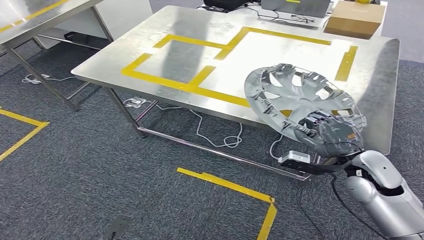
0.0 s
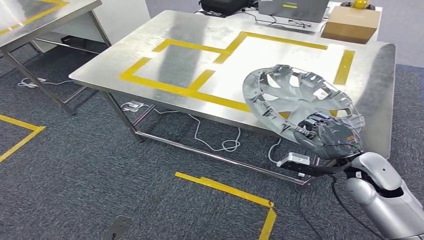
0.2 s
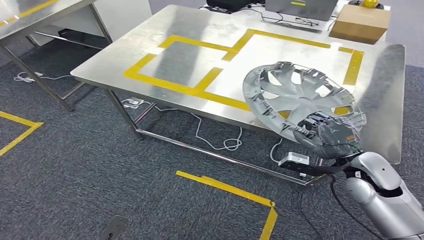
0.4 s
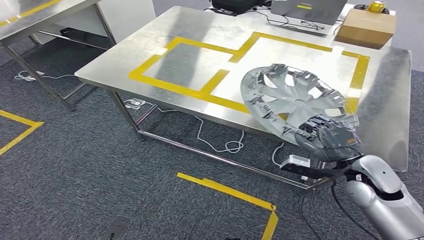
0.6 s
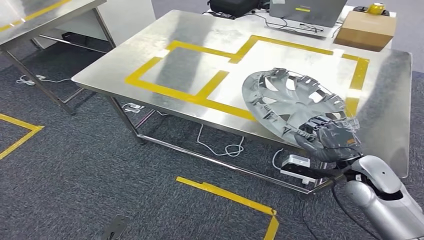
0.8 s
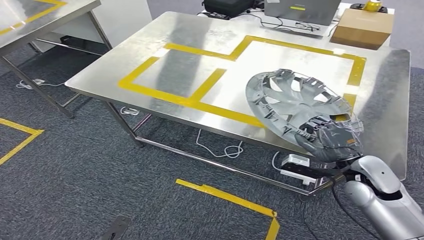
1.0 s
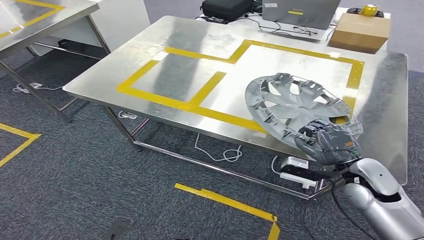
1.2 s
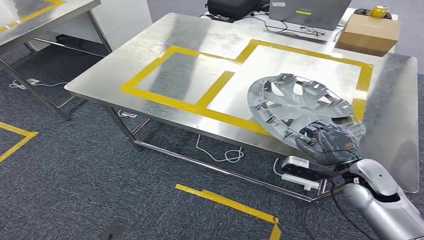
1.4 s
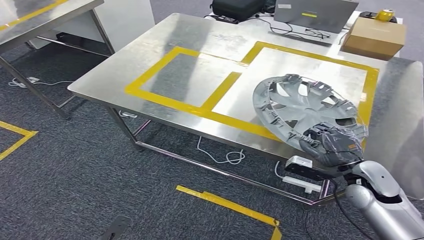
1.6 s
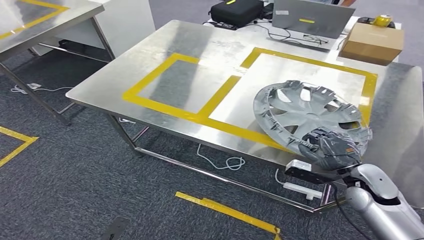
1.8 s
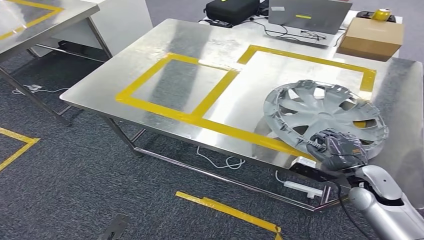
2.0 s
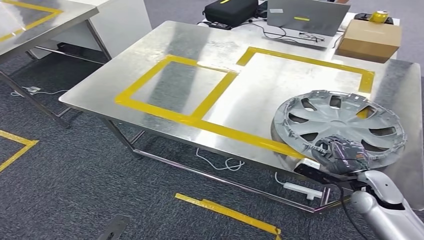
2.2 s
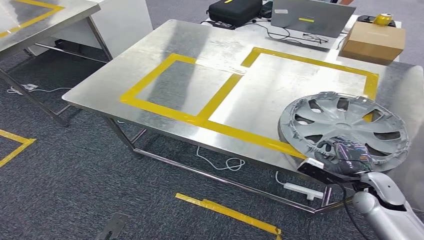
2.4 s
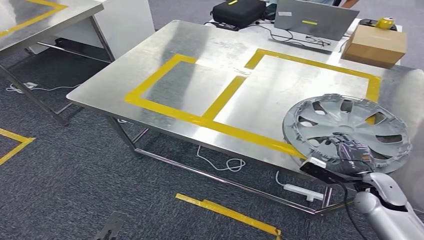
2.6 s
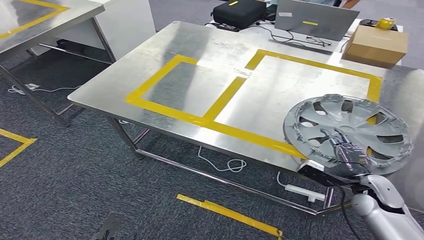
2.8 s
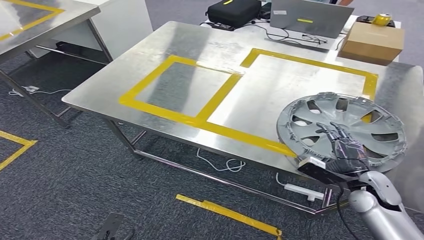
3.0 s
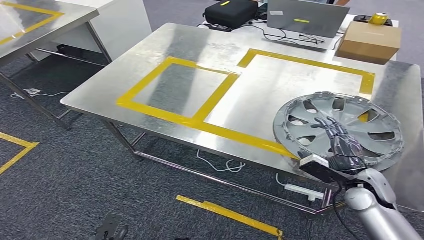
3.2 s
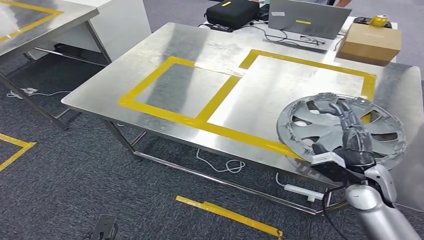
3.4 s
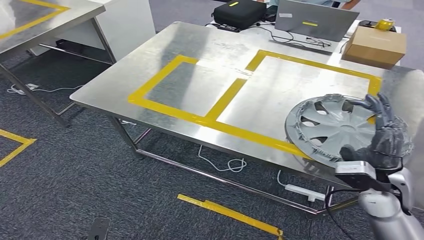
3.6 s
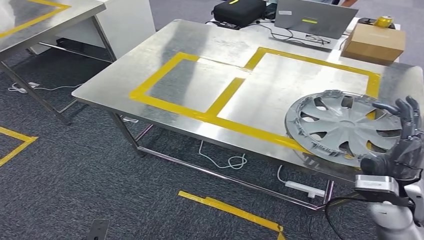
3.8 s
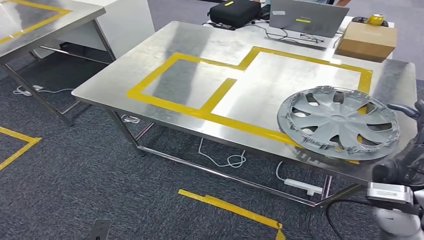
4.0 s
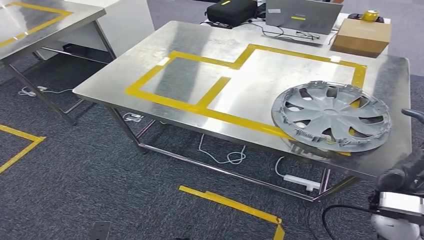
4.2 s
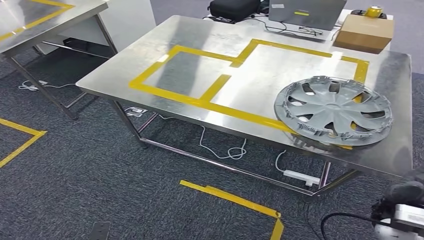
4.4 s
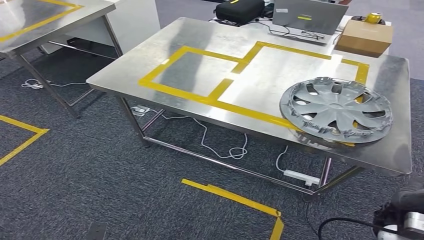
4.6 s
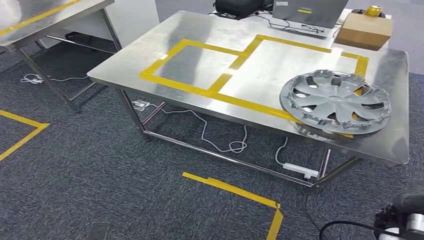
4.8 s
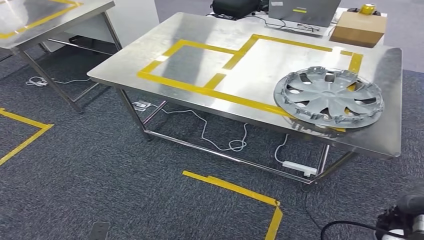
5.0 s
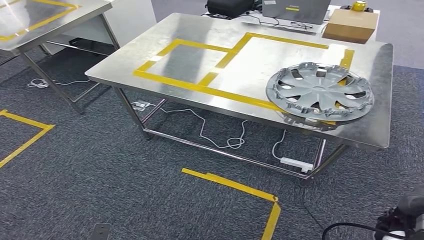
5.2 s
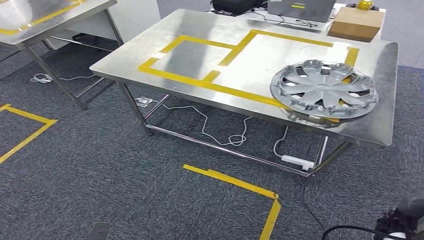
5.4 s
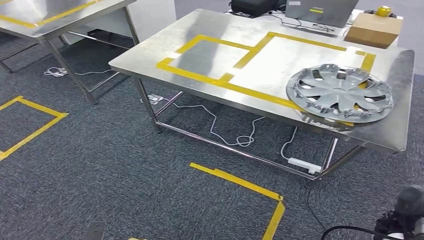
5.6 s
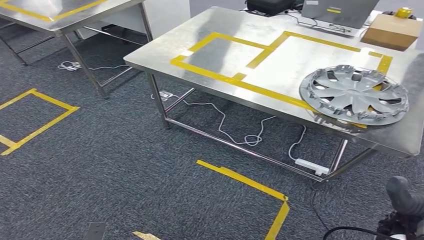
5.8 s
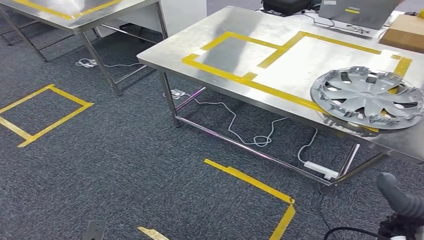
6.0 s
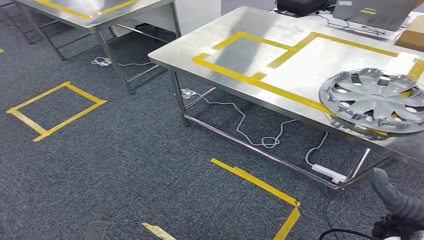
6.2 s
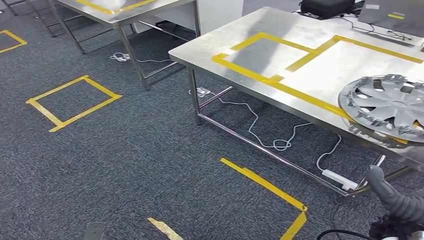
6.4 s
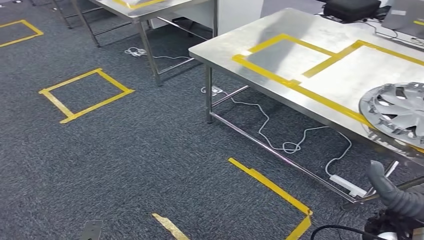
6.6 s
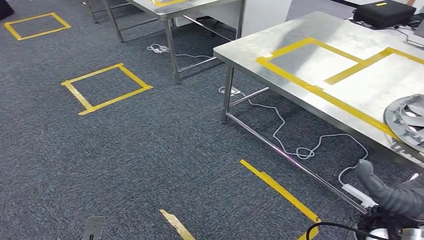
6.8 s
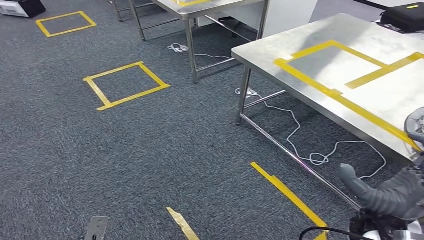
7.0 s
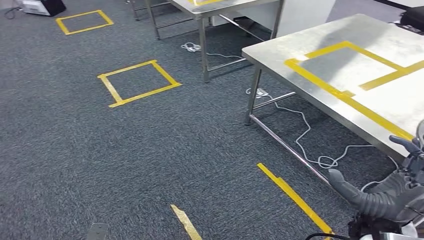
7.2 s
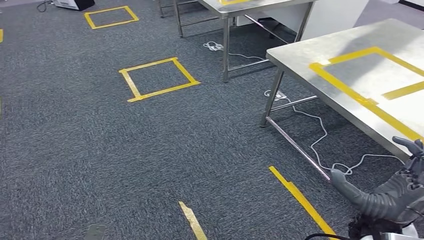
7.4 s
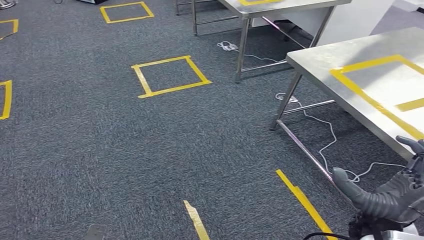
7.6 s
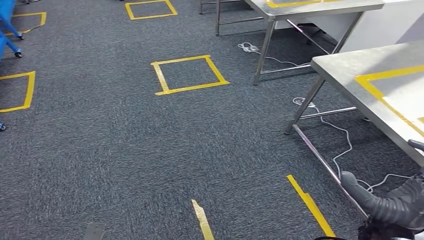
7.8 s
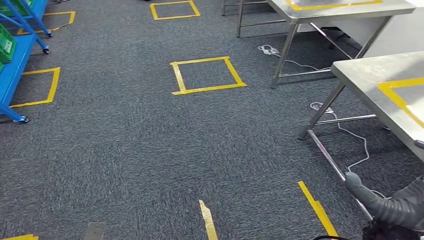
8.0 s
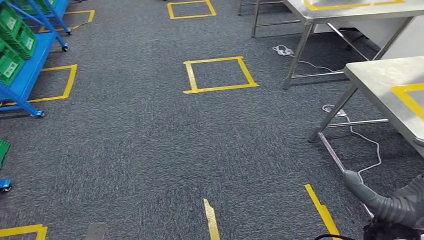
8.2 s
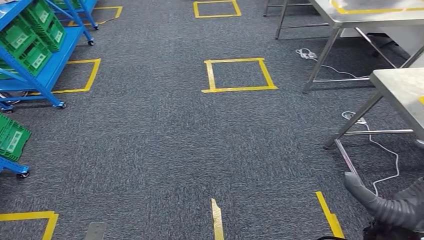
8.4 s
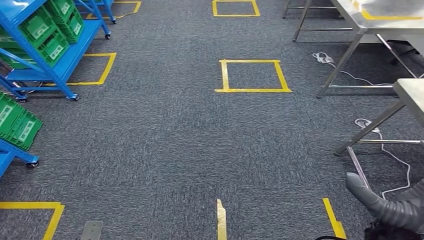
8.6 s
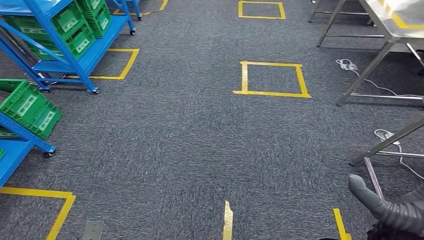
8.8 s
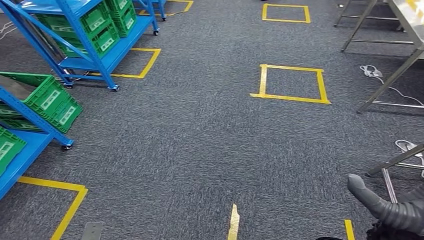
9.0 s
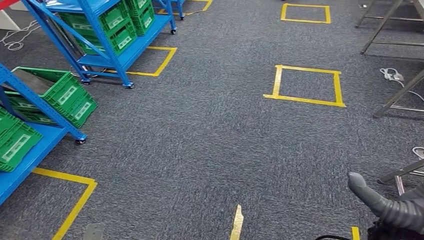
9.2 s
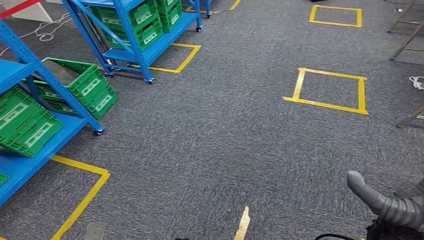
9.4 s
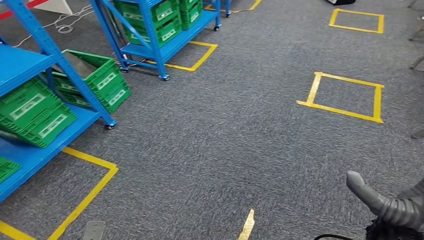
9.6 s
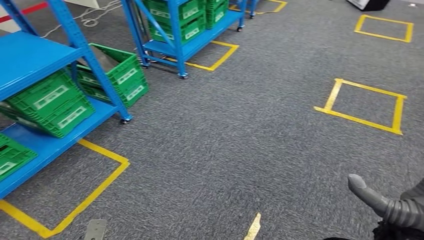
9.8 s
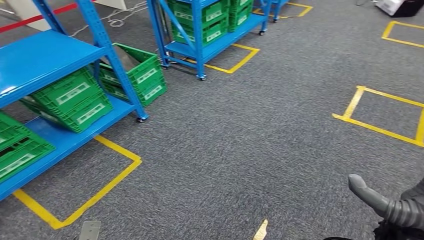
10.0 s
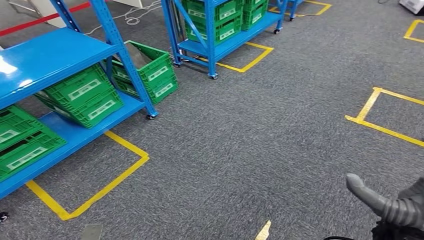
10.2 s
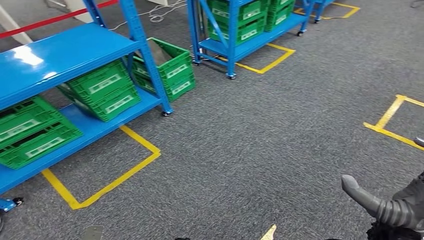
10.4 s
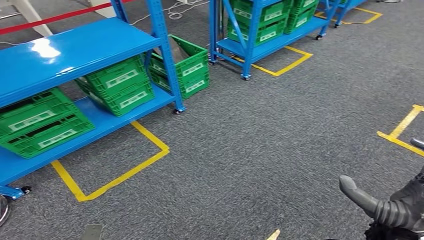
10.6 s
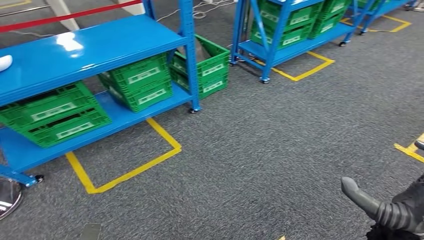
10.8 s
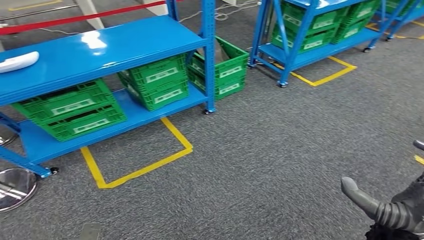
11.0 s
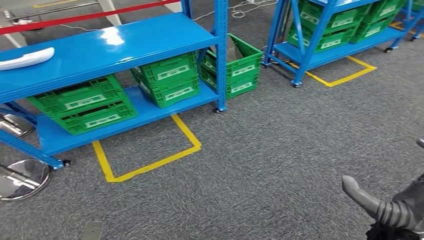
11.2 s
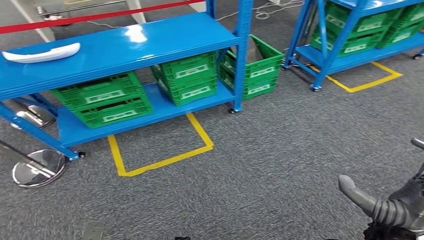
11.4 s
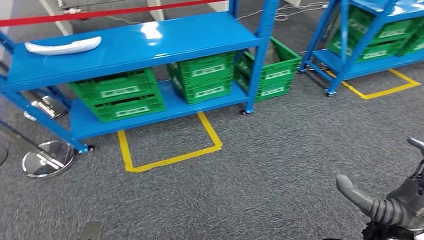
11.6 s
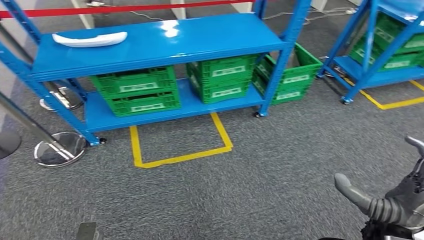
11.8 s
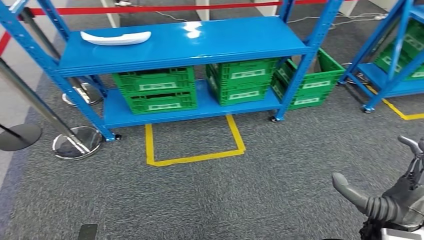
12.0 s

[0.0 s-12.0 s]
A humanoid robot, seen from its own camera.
Step, 0.0 to 4.8 s: Insert the small component into the corresponding slot on the workbench.

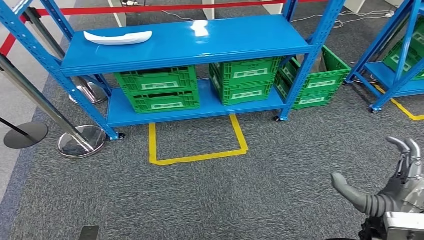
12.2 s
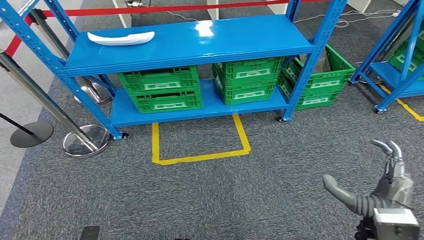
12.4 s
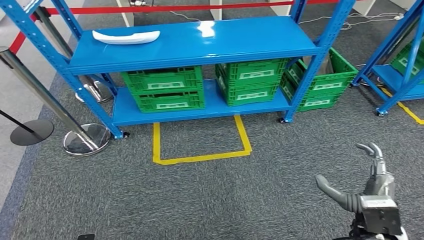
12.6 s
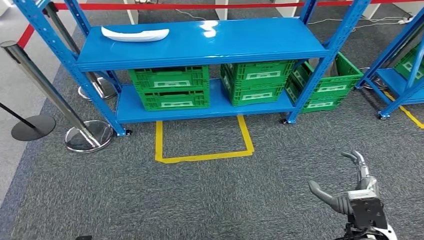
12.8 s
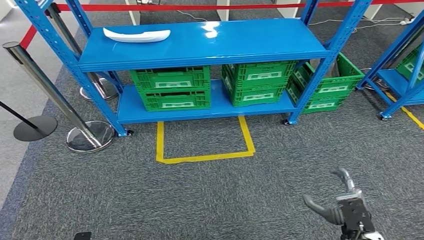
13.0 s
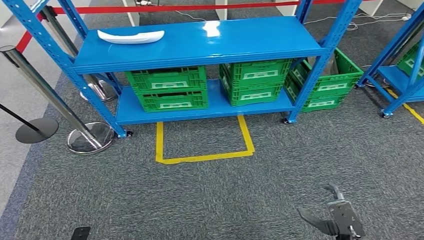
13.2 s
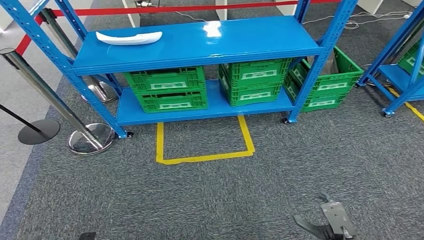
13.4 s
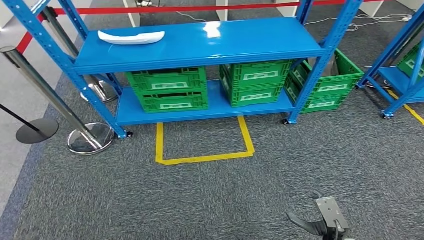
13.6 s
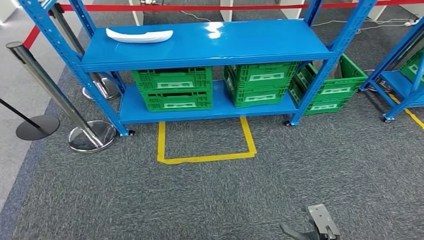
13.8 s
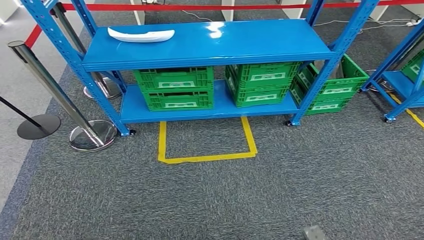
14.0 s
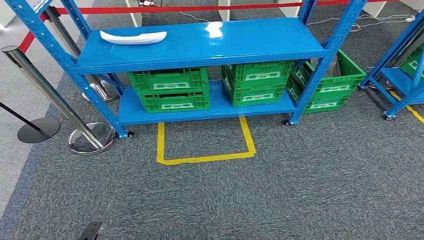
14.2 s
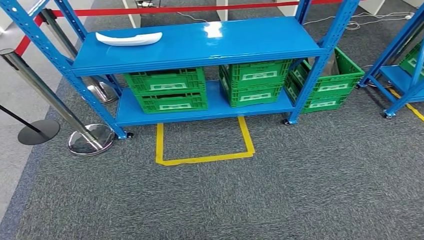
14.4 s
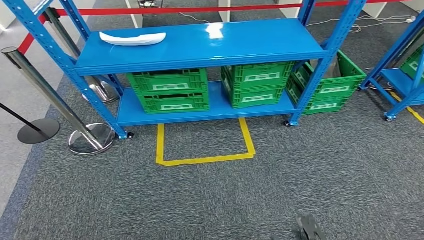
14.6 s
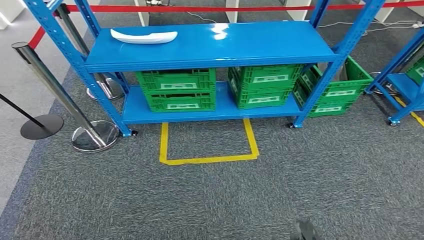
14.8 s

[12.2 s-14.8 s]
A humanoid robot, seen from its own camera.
Step, 12.2 to 14.6 s: Return to the initial position at the workbench.

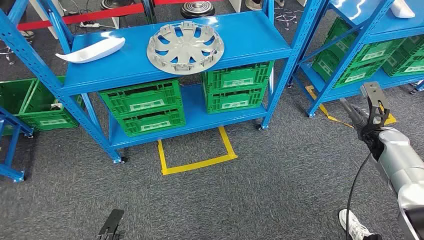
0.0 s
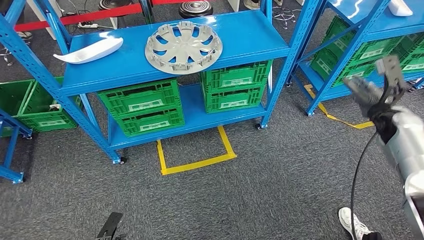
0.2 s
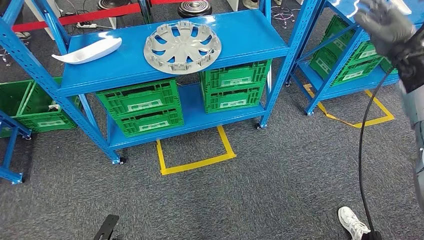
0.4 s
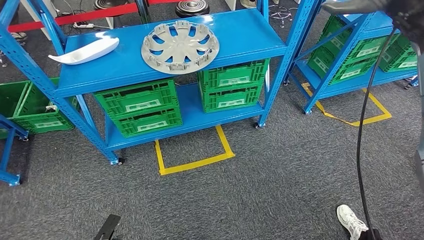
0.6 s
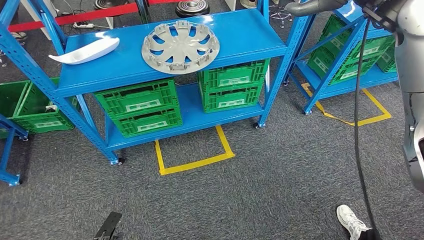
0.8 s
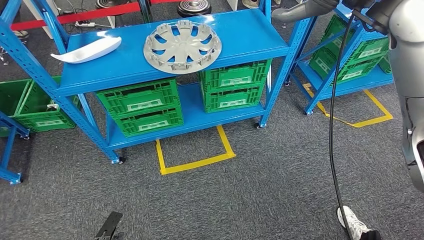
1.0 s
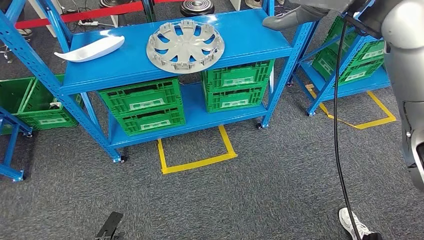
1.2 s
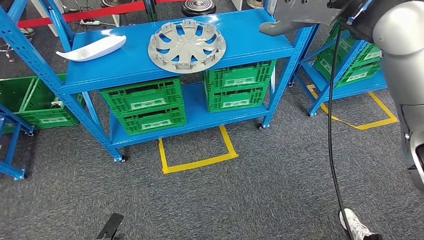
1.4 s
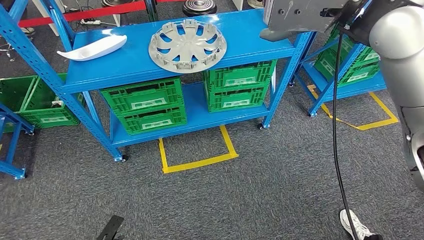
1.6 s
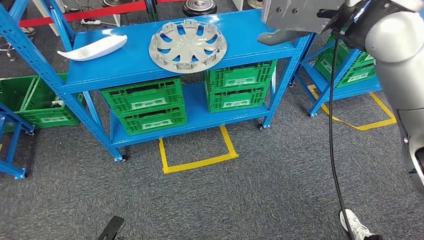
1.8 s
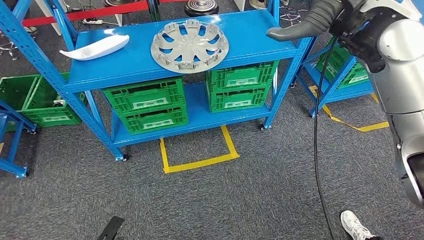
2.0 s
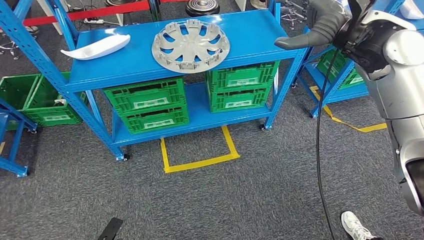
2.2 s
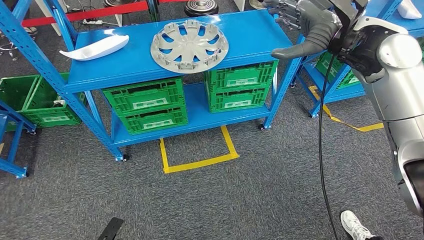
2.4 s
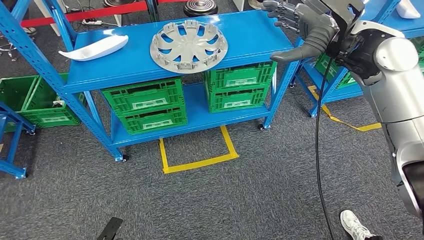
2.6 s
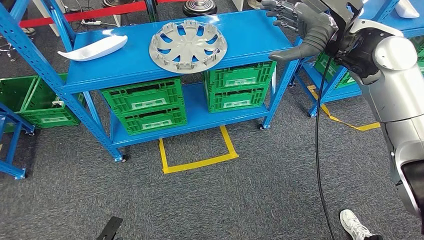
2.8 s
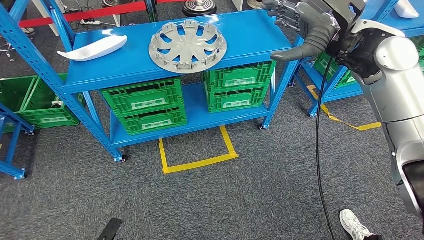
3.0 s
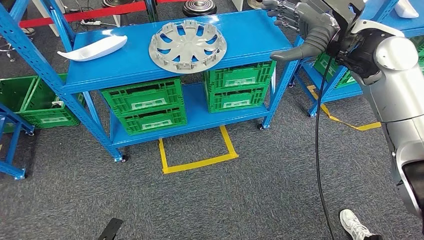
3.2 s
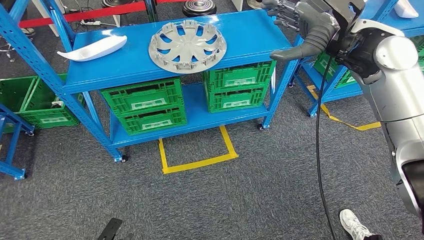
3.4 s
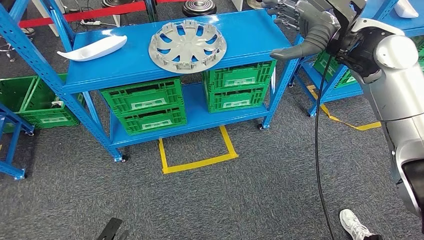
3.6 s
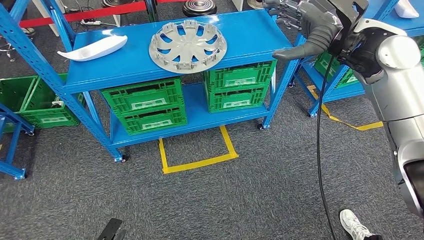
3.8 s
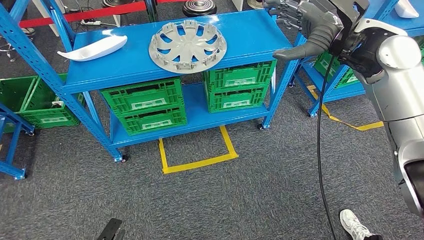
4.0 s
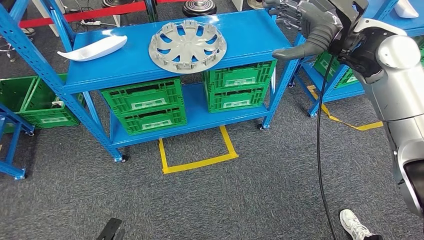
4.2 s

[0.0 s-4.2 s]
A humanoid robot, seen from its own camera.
1.4 to 2.8 s: The right hand moves downward and to the right, roughly 10 cm.
2.8 to 4.2 s: Both hands stay about where they are.
